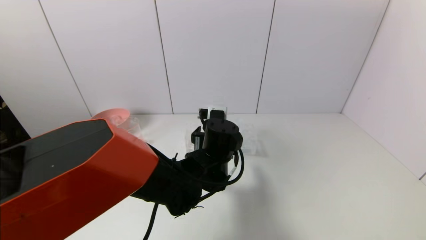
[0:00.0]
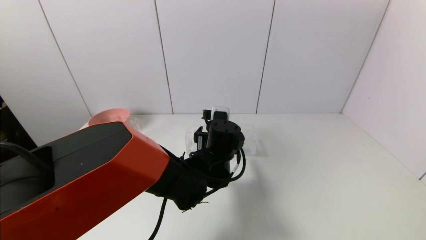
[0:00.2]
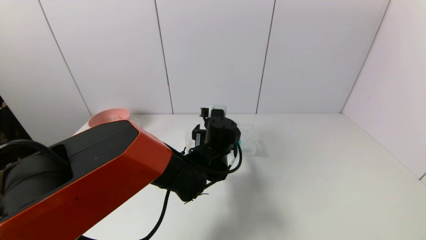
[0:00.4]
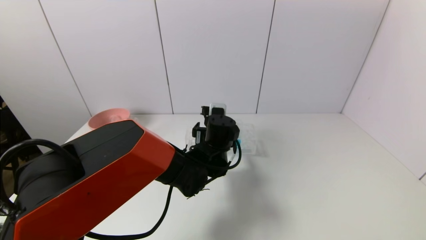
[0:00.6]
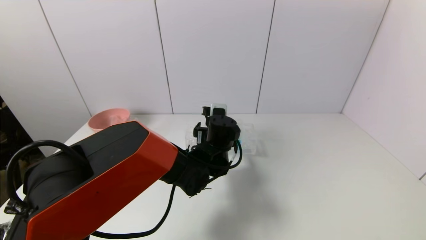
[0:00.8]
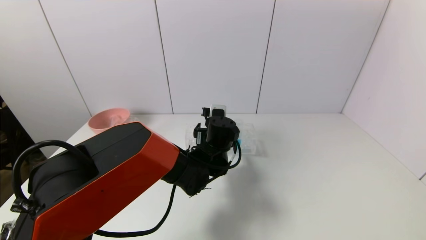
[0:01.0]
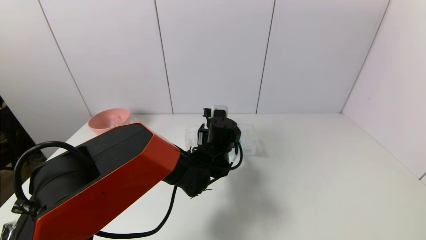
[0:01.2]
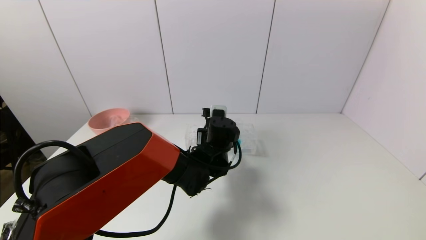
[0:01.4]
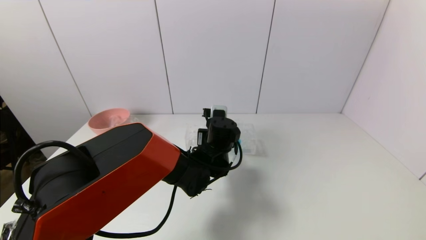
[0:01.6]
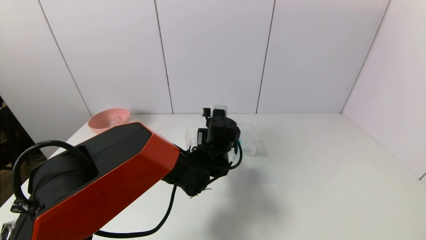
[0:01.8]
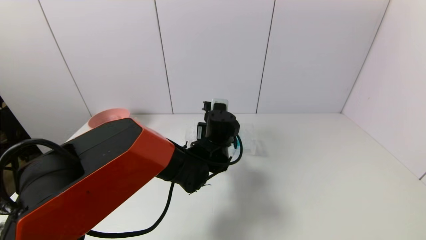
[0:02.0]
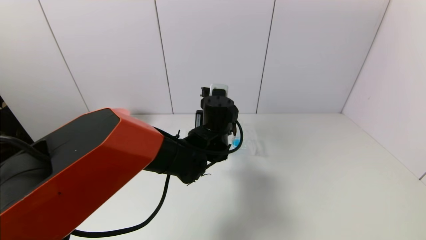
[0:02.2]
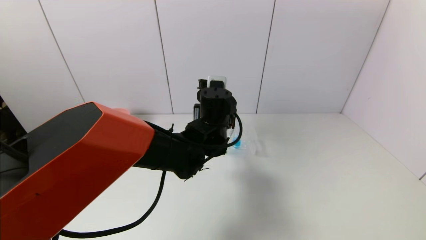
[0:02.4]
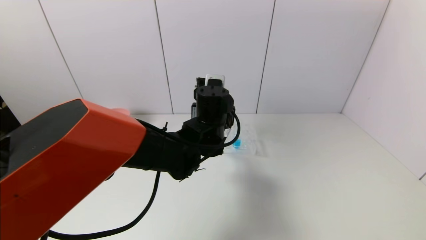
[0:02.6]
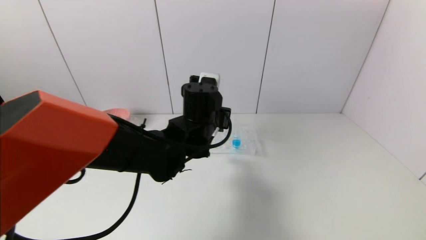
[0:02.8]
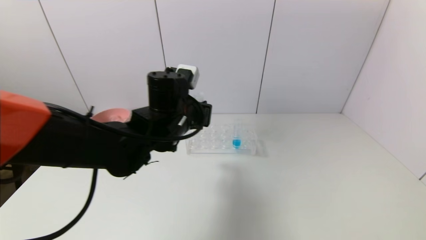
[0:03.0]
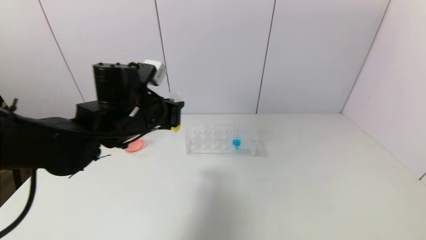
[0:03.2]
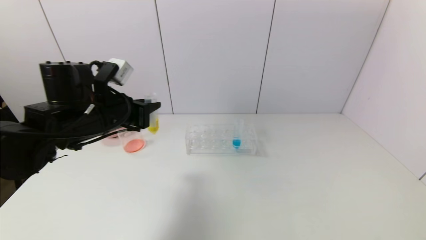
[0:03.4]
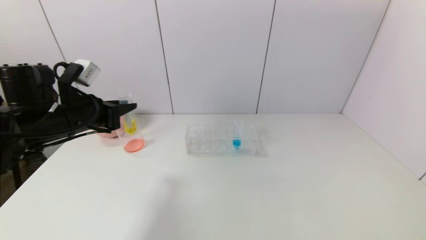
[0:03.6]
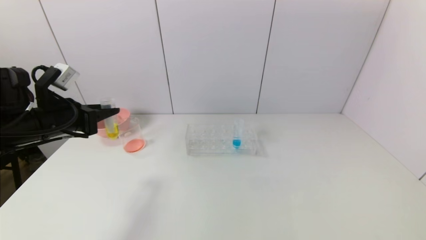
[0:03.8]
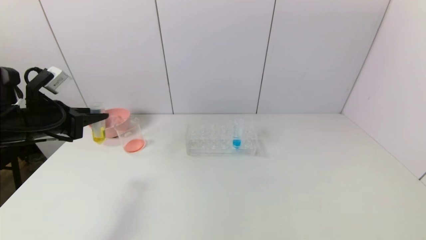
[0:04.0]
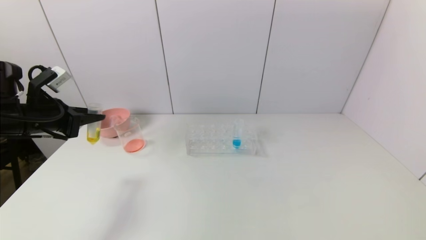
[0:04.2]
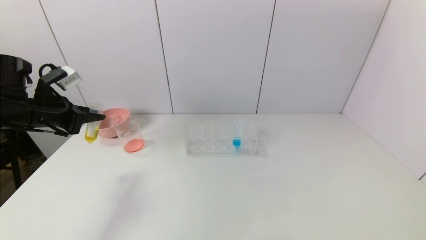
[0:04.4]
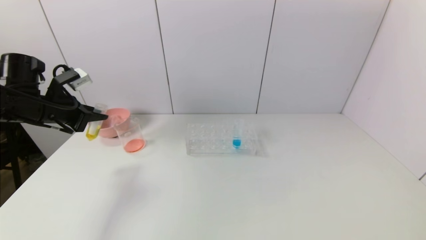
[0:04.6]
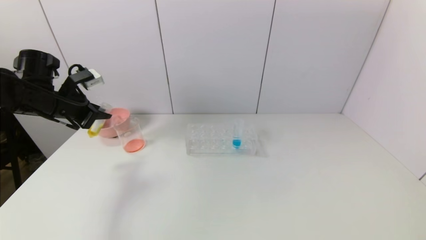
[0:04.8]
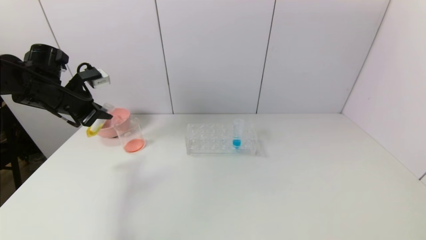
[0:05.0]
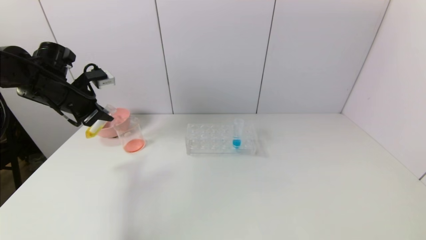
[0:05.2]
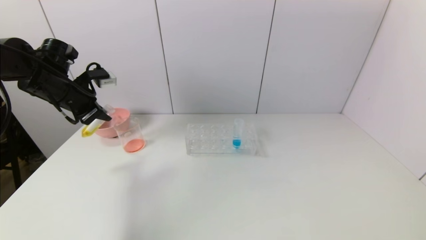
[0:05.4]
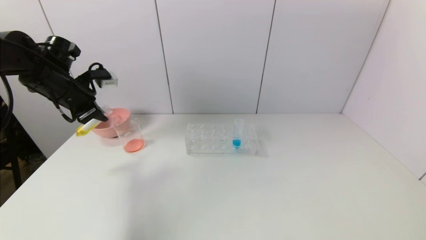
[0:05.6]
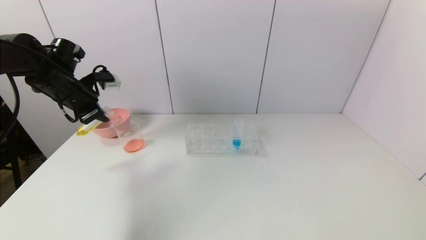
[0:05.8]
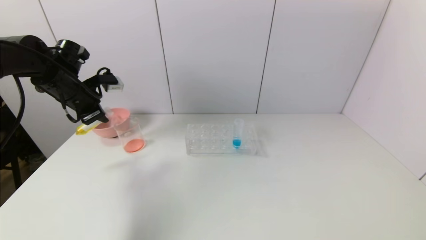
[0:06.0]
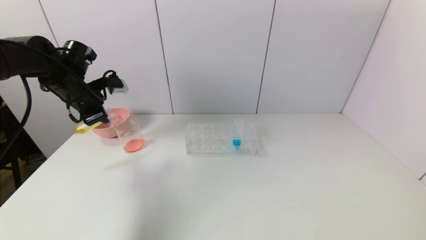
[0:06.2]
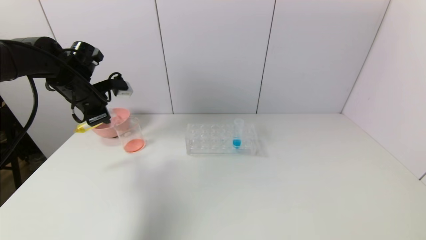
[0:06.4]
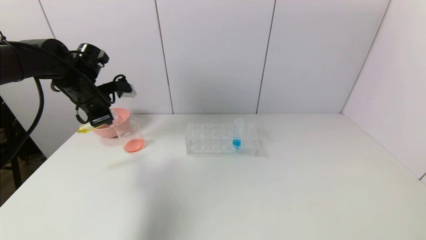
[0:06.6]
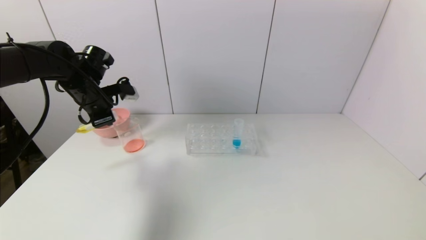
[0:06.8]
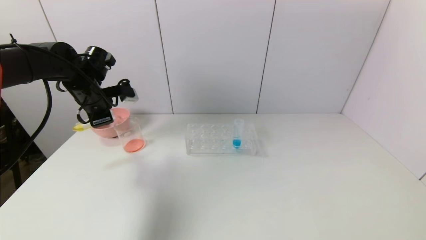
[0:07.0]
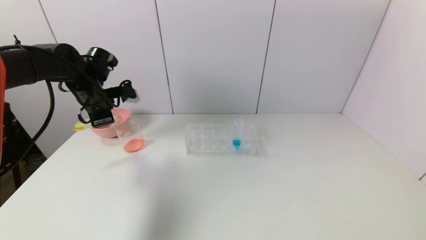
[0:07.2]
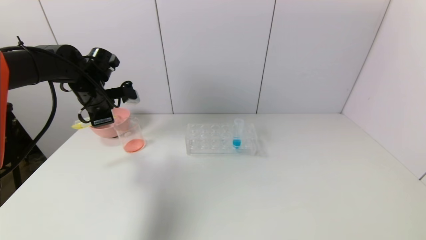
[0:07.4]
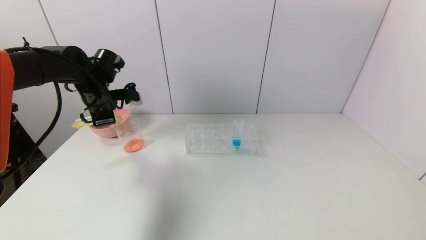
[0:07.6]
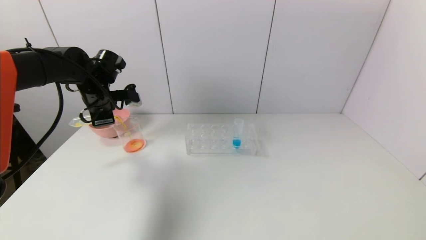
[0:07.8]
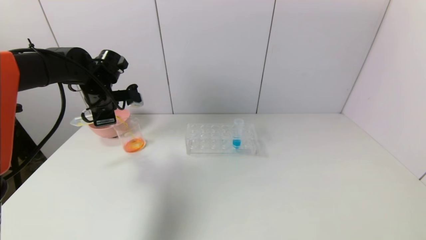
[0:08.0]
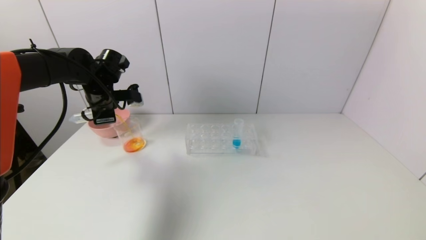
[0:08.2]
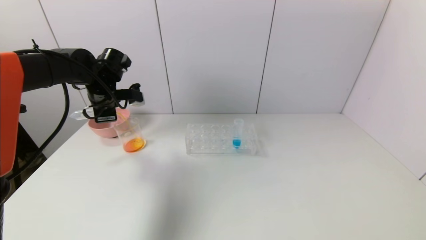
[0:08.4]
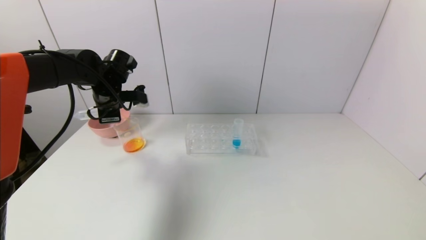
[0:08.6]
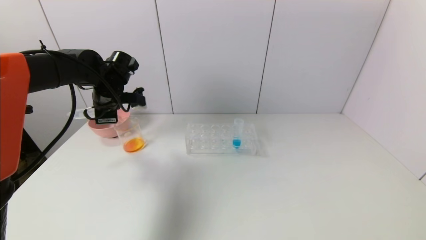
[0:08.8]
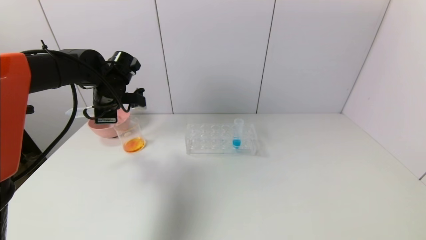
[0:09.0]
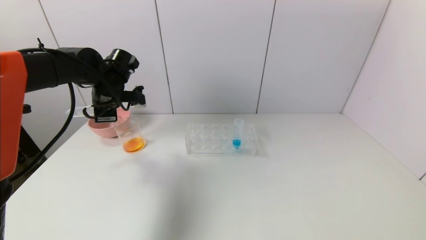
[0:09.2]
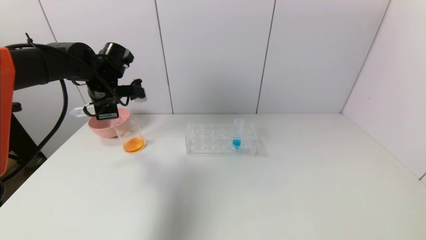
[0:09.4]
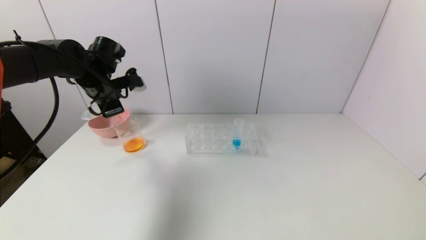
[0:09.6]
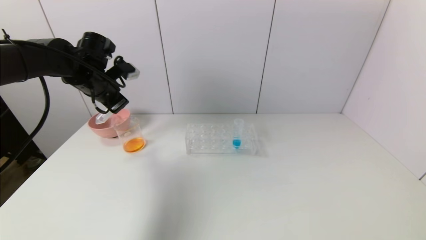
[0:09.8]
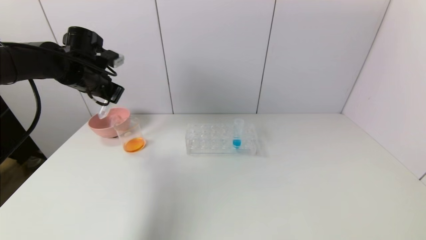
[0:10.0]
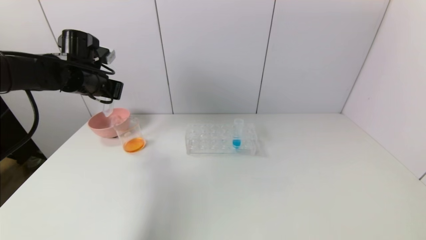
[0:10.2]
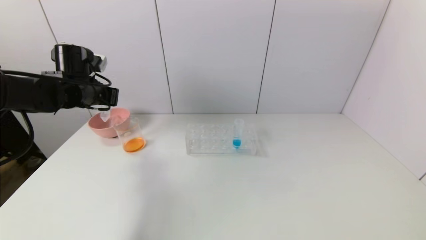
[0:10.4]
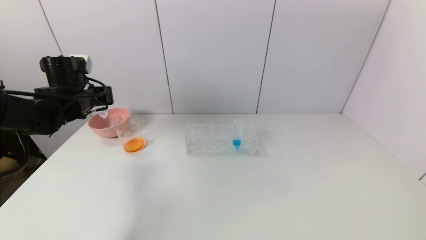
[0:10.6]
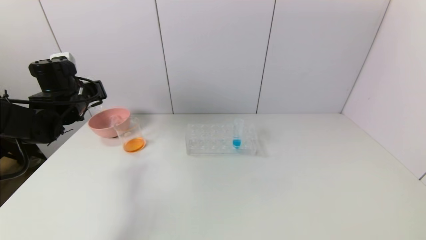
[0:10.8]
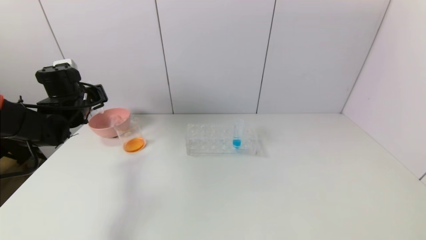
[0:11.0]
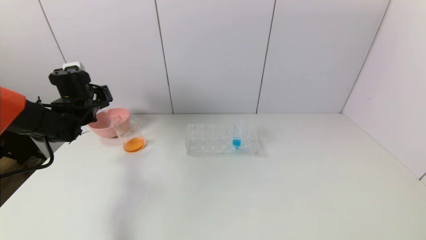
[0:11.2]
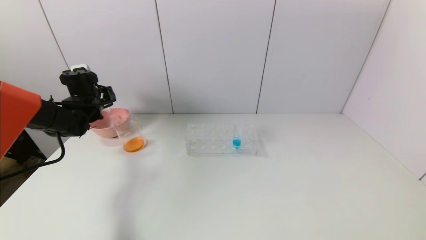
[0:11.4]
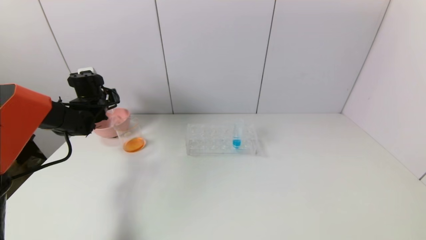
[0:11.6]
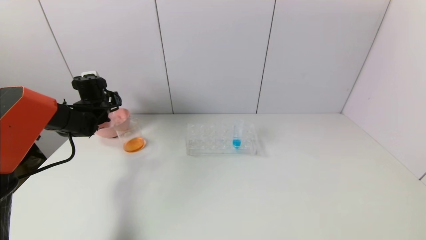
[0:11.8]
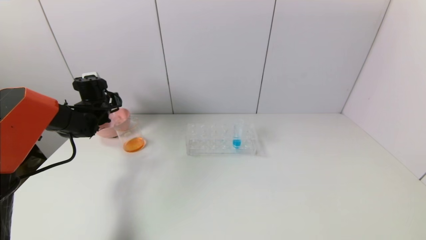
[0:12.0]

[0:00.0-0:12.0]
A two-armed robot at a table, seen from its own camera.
Task of the whole recording: pick up the test tube with yellow pigment and the test tube with red pigment by grippers and pour them into the beaker.
Step, 0:01.8 to 0:09.0: Pour the yellow reagent into the graduated cylinder with the left gripper.
0:00.0 to 0:01.6: The left gripper travels forward by about 5 cm, and closes its fingers.
0:01.6 to 0:03.0: The left gripper is displaced upward and to the left by about 15 cm.
0:03.0 to 0:04.4: The left gripper goes some 25 cm to the left.
0:04.4 to 0:06.0: The left gripper moves forward, some 10 cm.
0:06.0 to 0:07.6: The left gripper changes place by about 5 cm.
0:07.6 to 0:09.0: The grippers make only small movements.
0:09.0 to 0:10.4: The left gripper moves to the left, some 5 cm.
0:10.4 to 0:12.0: The left gripper moves forward and downward, approximately 10 cm.

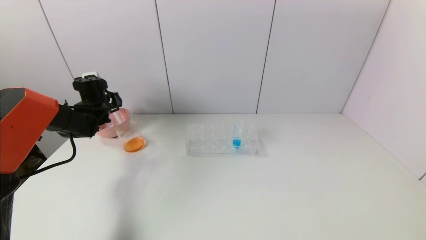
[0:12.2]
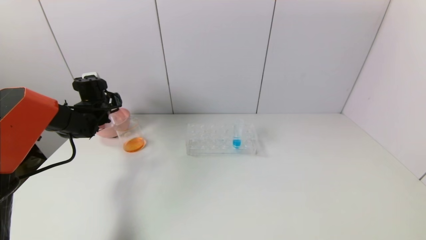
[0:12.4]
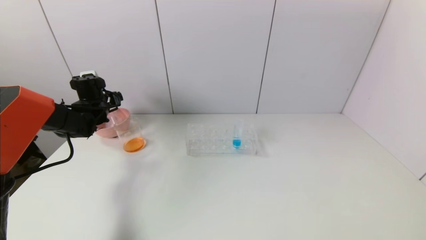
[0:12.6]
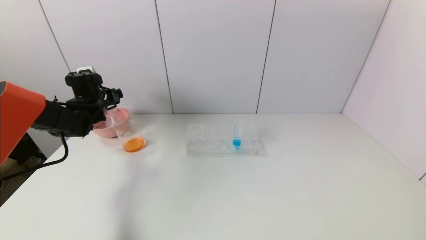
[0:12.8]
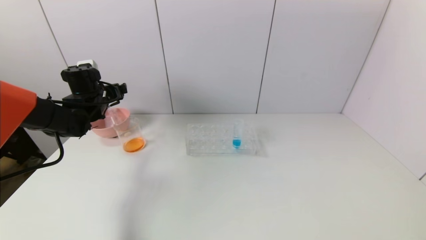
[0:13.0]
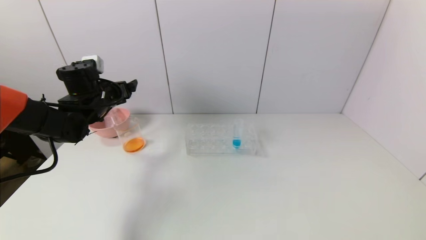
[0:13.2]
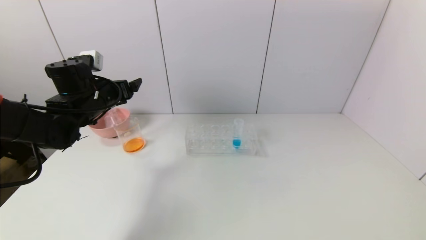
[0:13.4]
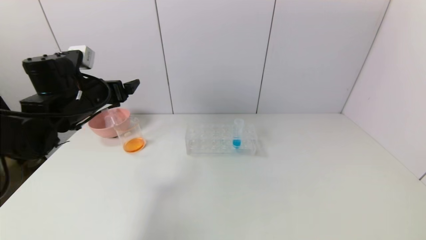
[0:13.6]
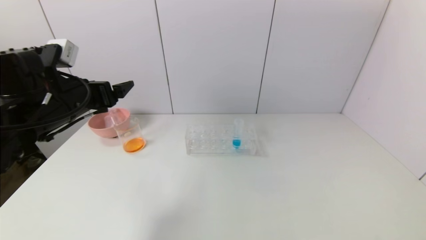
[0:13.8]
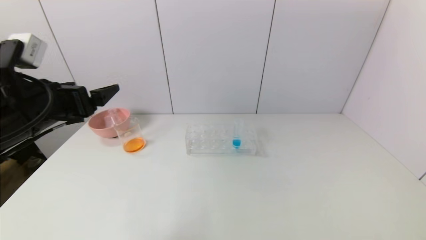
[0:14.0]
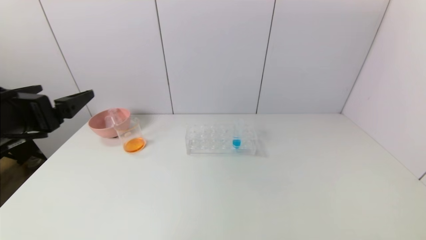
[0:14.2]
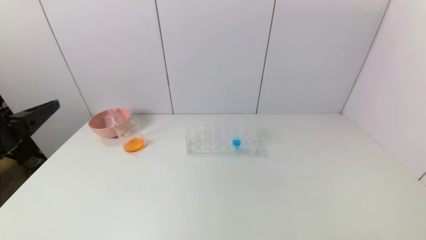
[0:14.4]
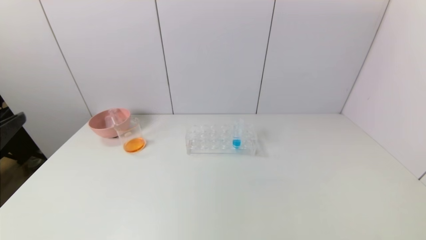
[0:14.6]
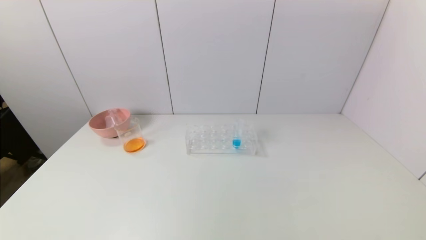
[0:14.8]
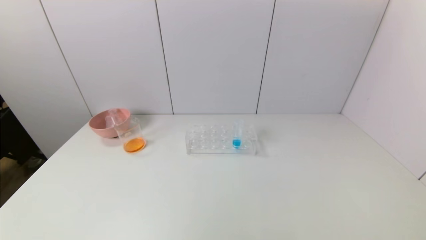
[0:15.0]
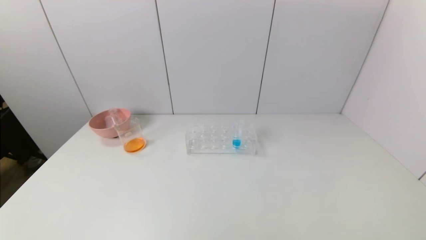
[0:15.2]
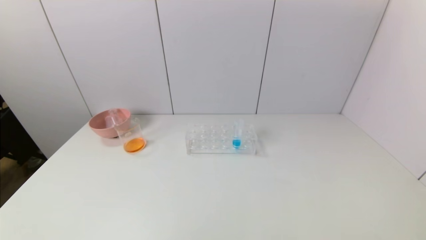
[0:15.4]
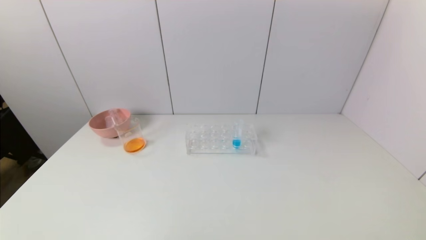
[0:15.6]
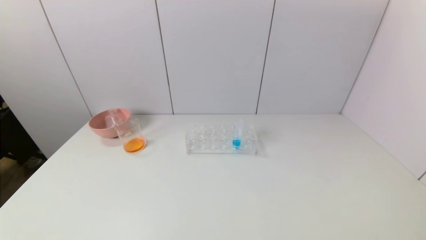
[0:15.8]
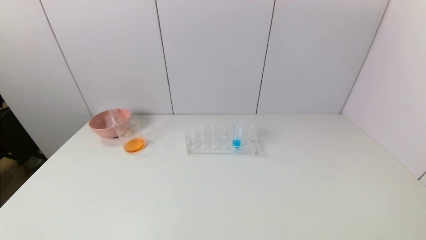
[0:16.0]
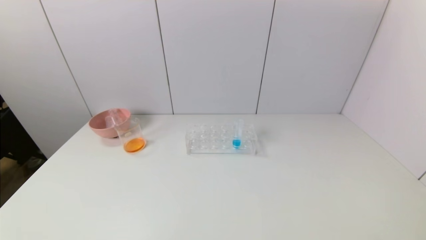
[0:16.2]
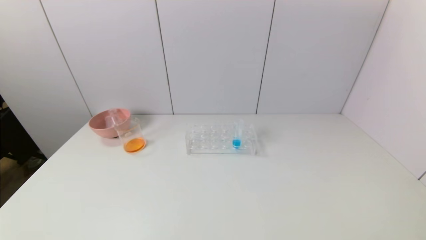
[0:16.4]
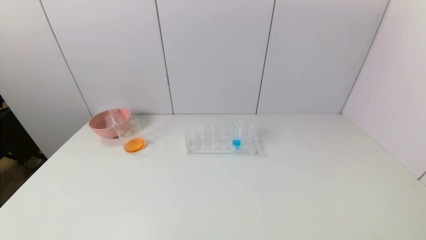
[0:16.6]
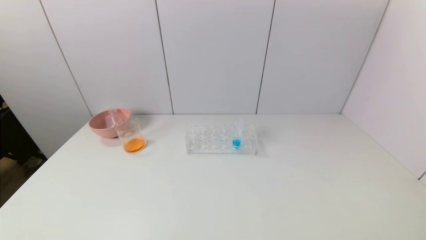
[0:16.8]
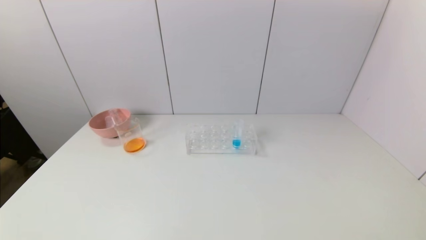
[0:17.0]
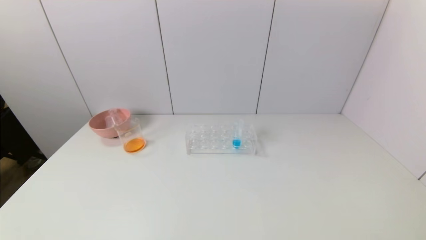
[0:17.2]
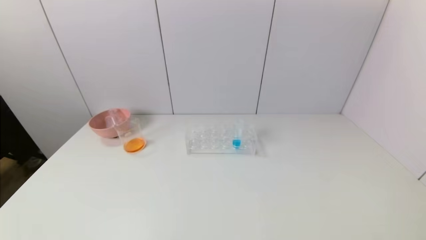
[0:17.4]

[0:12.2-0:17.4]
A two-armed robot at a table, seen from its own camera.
Task of the whole recording: pick up the test tube with yellow pigment and the test tube with red pigment by grippers and pour them into the beaker.
0:12.2 to 0:14.0: The left gripper travels backward and upward by some 30 cm, and opens up.
0:14.0 to 0:15.6: The left gripper heads backward and downward, covering about 30 cm.
